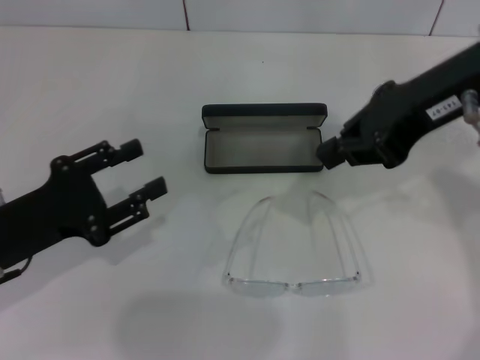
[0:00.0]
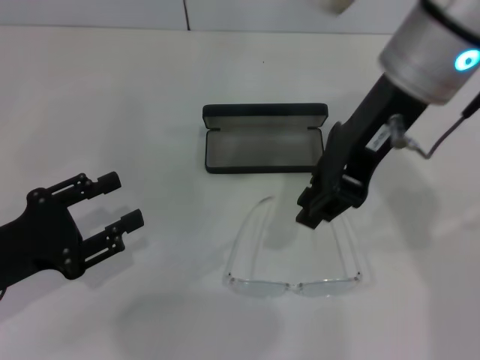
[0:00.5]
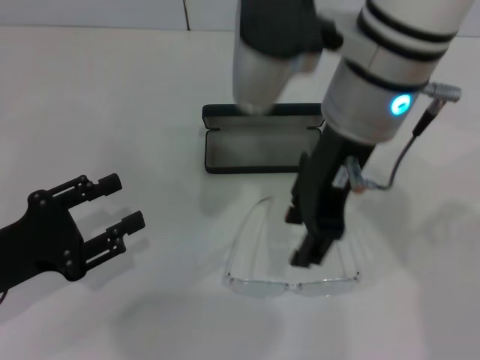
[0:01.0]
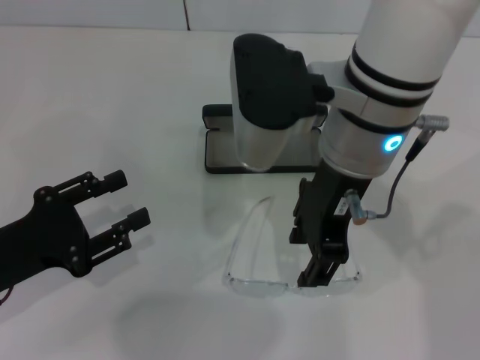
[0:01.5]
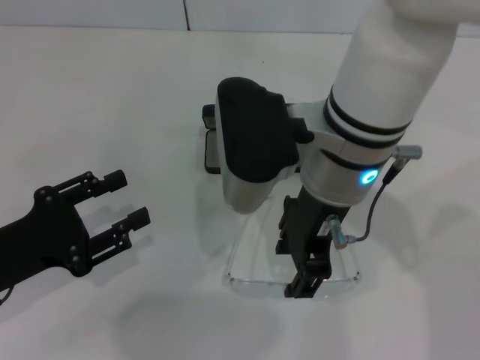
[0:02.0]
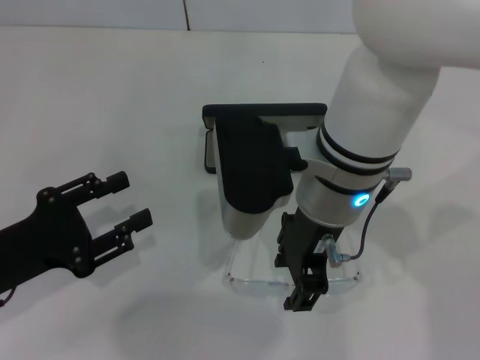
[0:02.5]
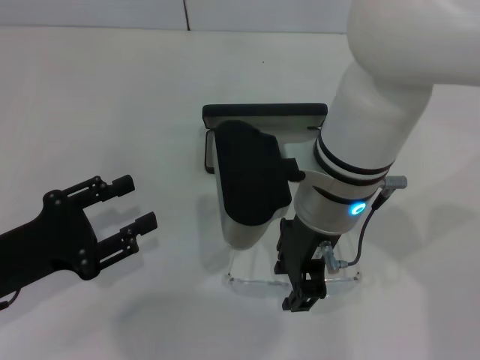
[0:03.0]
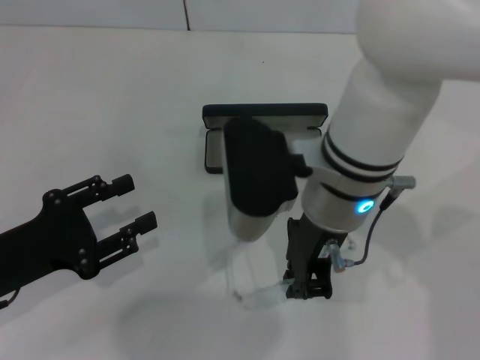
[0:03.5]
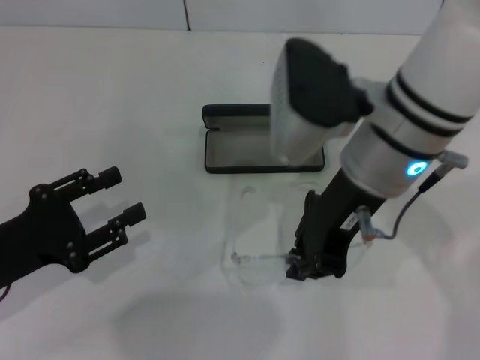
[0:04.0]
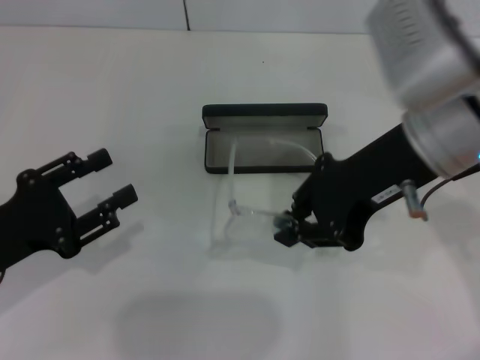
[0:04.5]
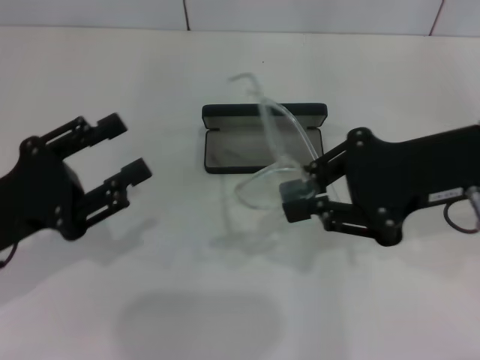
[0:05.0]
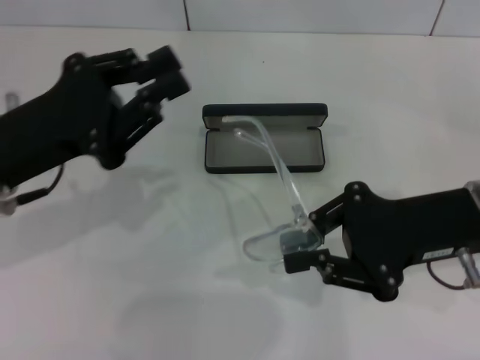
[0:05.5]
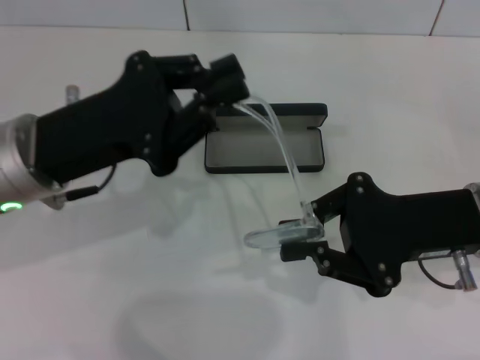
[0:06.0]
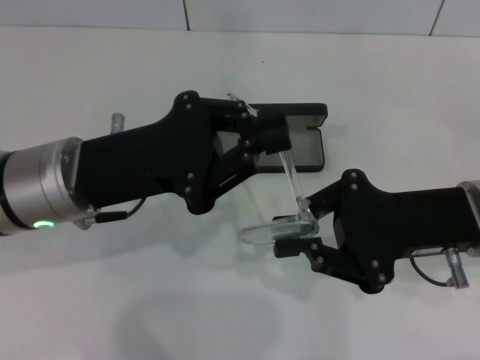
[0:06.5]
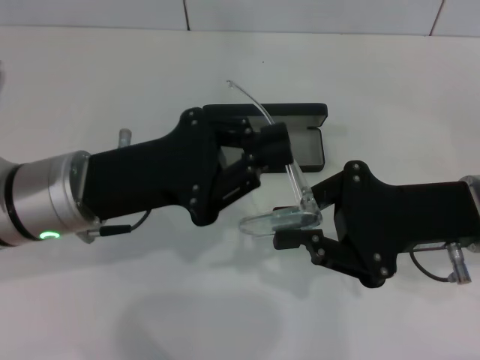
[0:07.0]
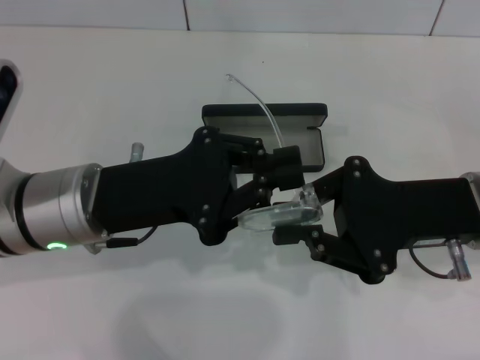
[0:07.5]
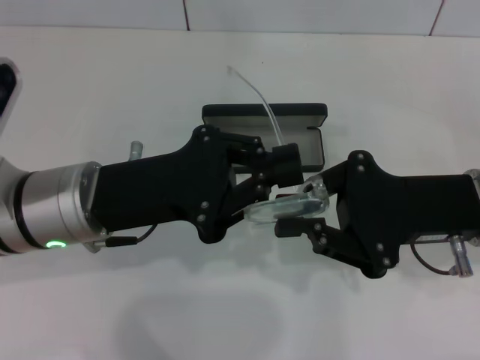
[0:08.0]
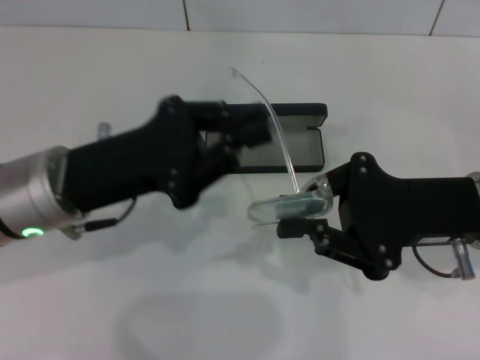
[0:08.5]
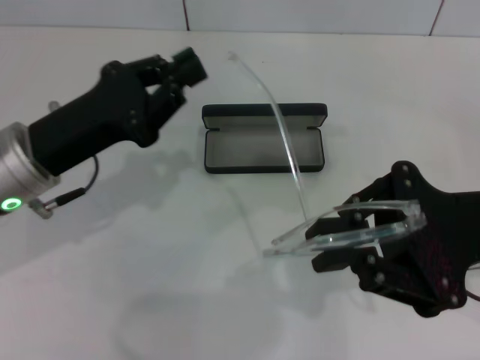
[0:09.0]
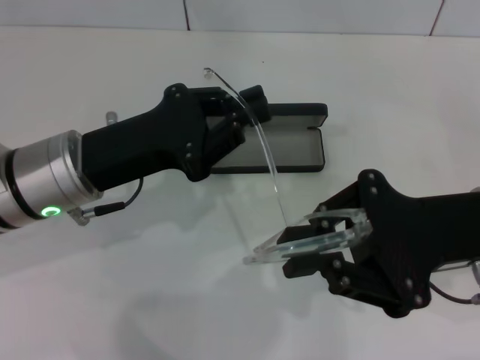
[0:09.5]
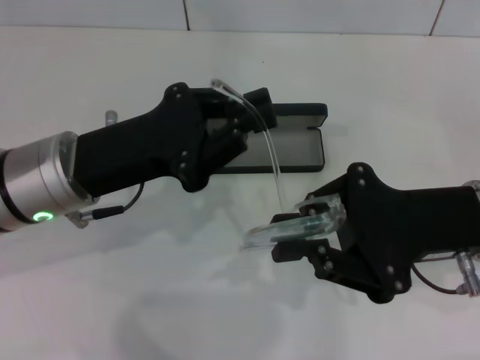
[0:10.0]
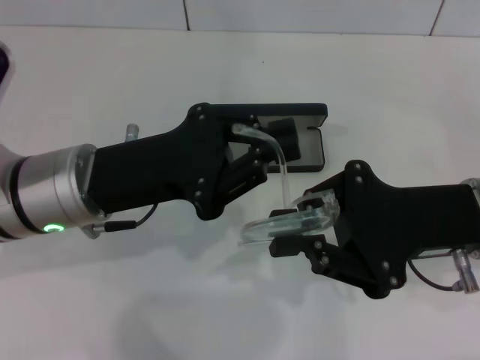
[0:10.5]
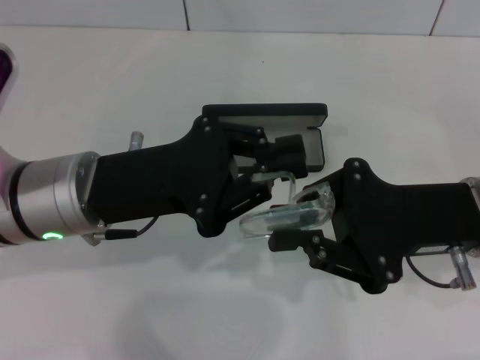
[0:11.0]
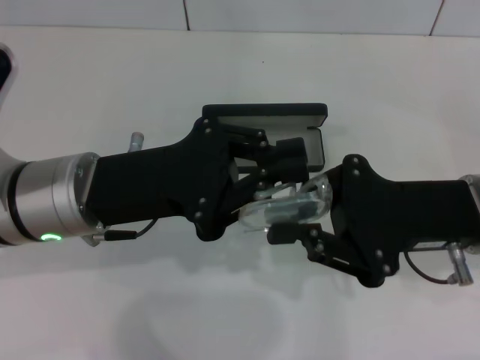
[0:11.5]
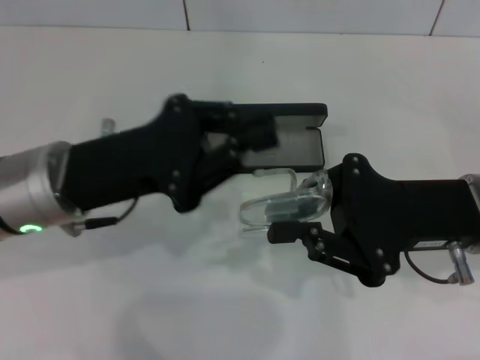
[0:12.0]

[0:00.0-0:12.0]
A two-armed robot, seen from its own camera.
Step, 0:00.0 to 0:03.0: Grab the eyeglass frame with your right hand.
Step, 0:03.5 to 0:11.5: Lift the glasses with your right hand.
0:00.0 to 0:02.0: The right gripper goes approximately 15 cm to the left and downward, and opens up.
0:02.0 to 0:04.0: The right gripper closes its fingers.
0:04.0 to 0:06.0: The right gripper moves to the right and downward, approximately 15 cm; the left gripper shifts roughly 15 cm to the right, upward and forward, and closes up.
0:10.0 to 0:12.0: The grippers move only a little.

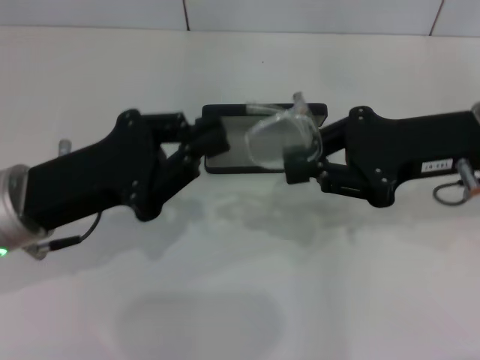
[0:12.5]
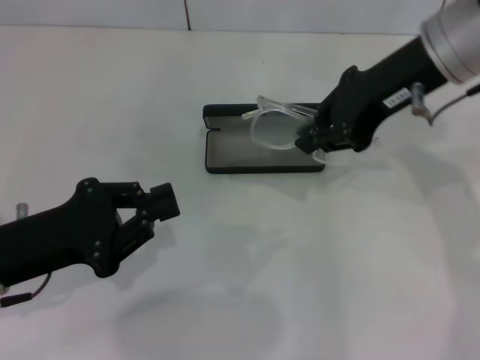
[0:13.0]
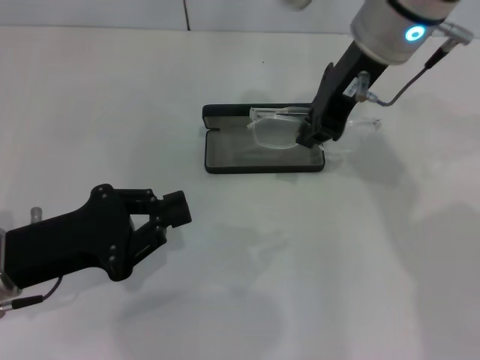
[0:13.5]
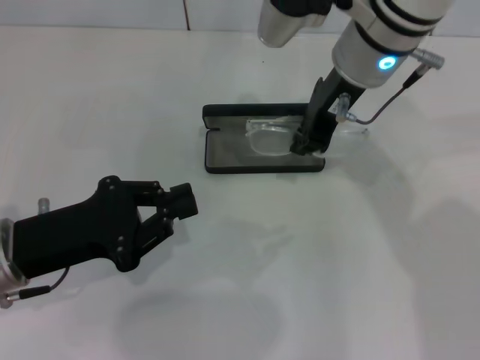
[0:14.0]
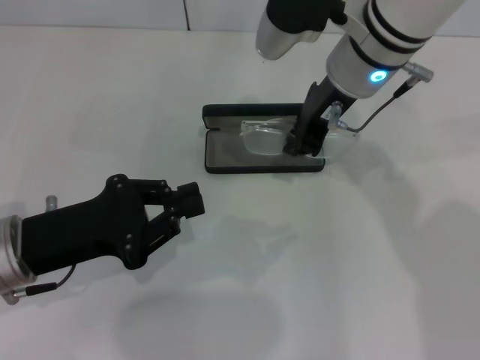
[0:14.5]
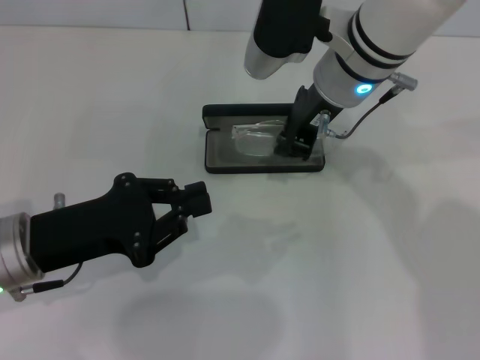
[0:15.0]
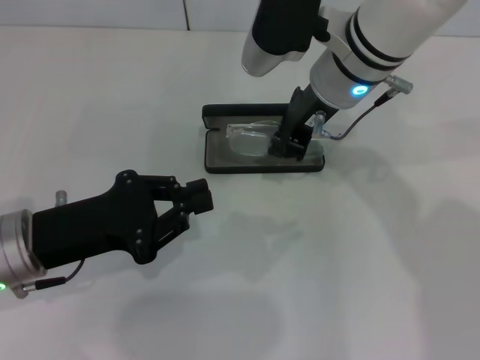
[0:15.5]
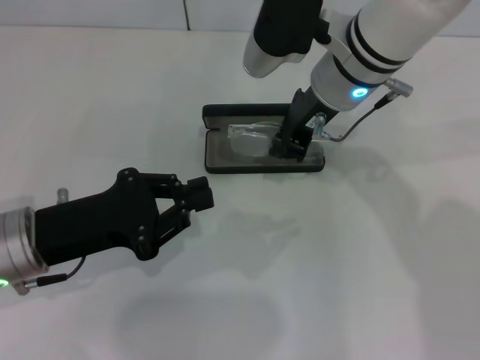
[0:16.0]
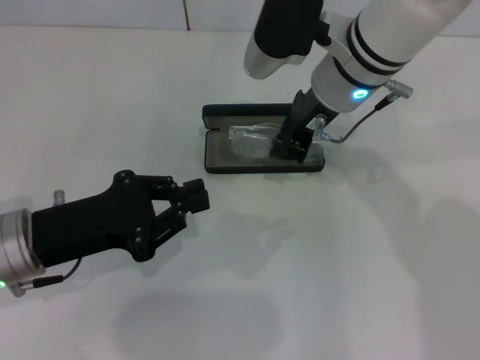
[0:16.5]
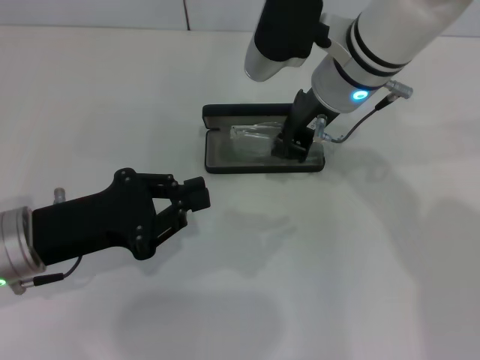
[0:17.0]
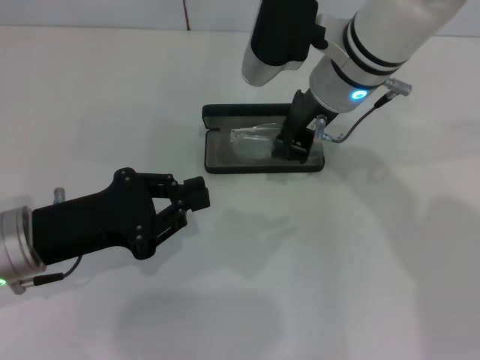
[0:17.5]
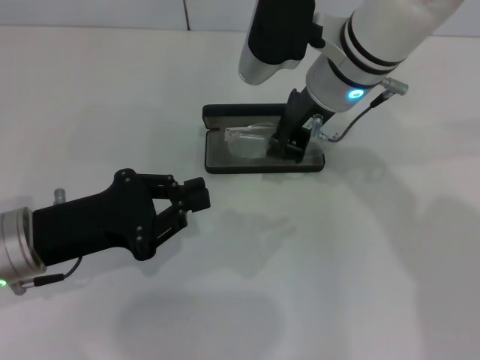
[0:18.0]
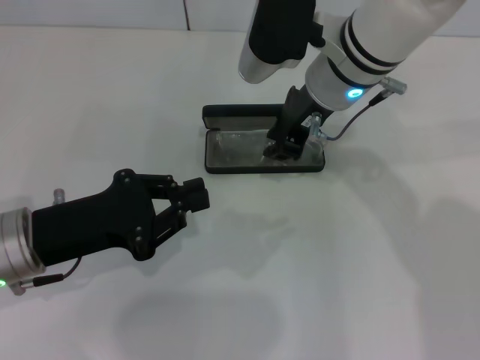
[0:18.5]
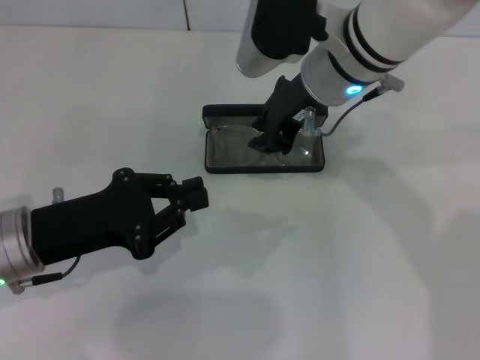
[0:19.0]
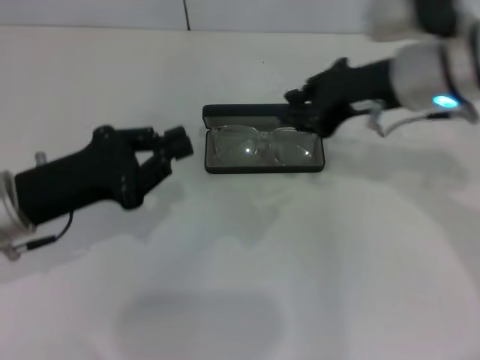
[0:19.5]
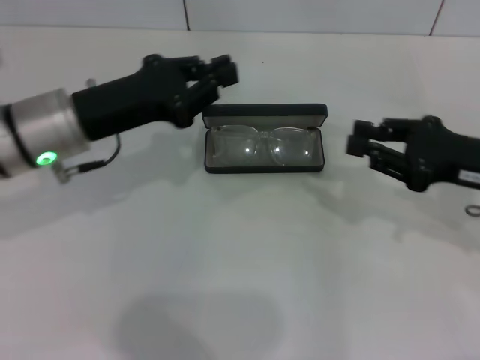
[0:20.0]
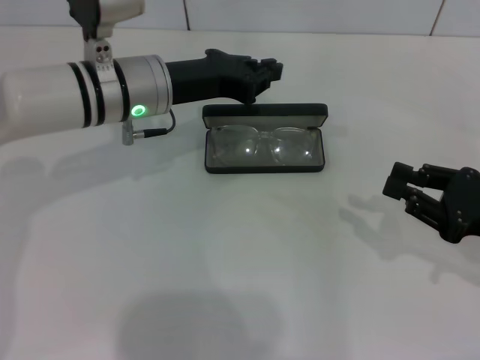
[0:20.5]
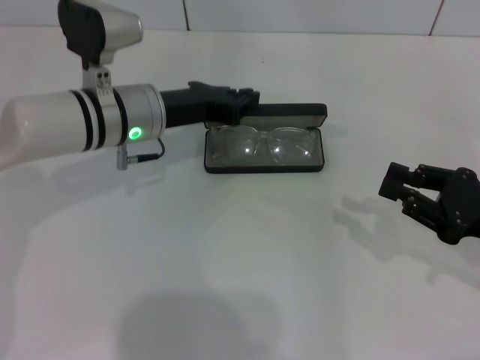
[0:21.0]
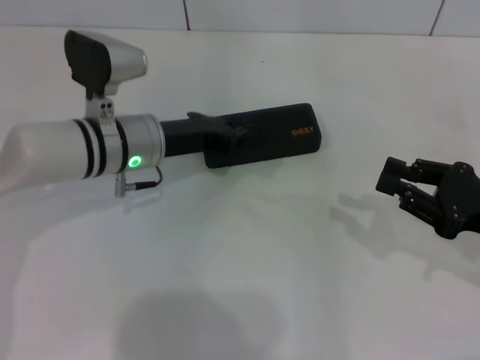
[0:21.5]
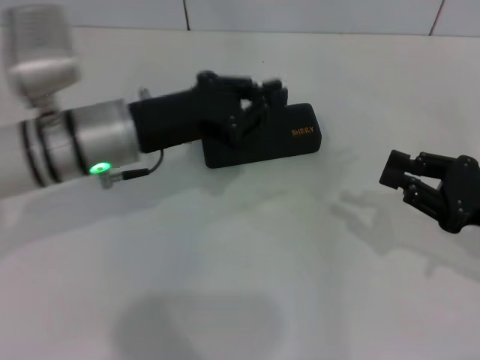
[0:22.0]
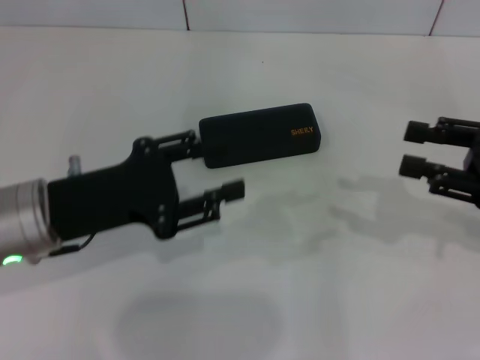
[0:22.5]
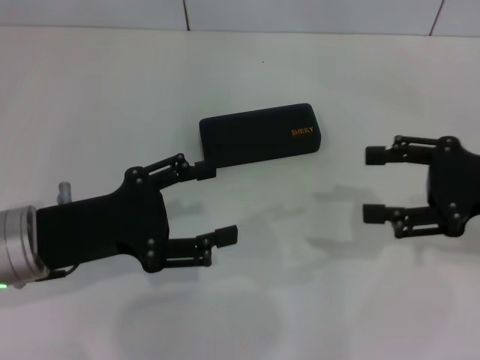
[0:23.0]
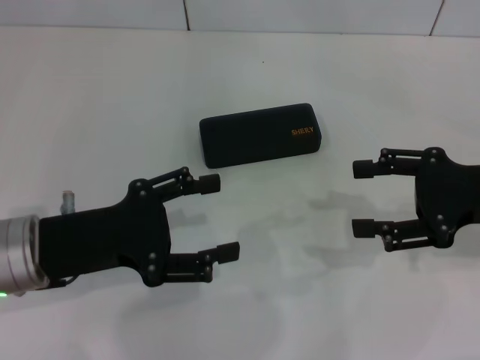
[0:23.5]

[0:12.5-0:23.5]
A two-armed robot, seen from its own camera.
Step, 0:12.5 to 0:18.5: Put the glasses into the case with your right hand.
Step, 0:19.0 to 0:21.0: Close the glasses case with your left hand.
0:12.5 to 0:14.5: The right gripper heads to the left and forward, covering approximately 15 cm.
0:14.5 to 0:16.0: There are only small adjustments of the grippers.
0:16.0 to 0:18.0: The two grippers keep their place.
0:18.0 to 0:20.0: The left gripper moves forward, about 10 cm, while the right gripper is displaced to the right and backward by approximately 25 cm.
0:20.0 to 0:21.5: The right gripper shifts by roughly 5 cm. Meanwhile the left gripper goes about 10 cm downward and to the right.
0:21.5 to 0:23.5: The right gripper heads upward, covering roughly 5 cm, and opens; the left gripper shifts about 15 cm backward and to the left, and opens up.
